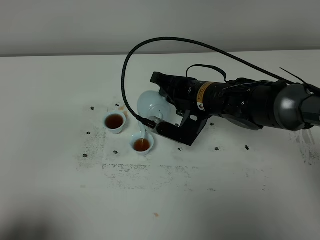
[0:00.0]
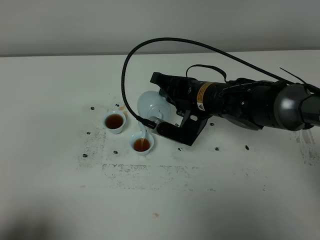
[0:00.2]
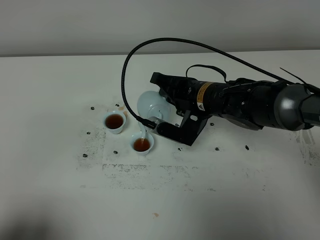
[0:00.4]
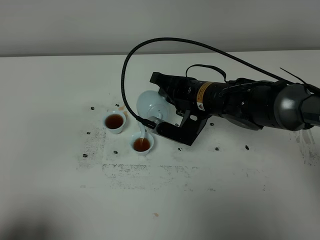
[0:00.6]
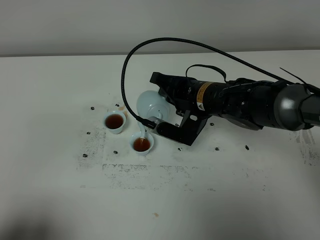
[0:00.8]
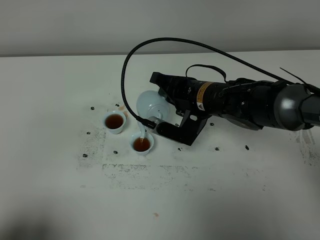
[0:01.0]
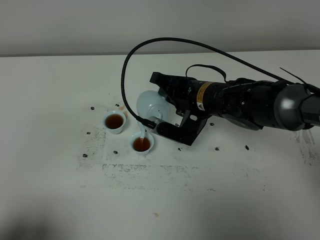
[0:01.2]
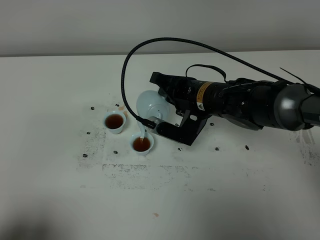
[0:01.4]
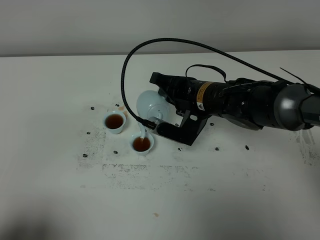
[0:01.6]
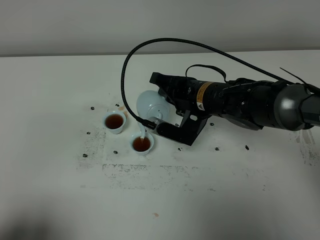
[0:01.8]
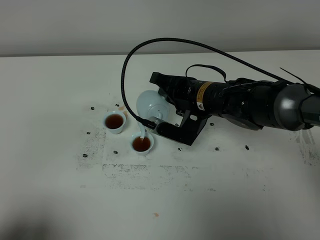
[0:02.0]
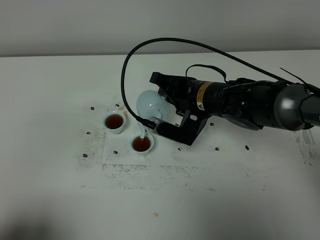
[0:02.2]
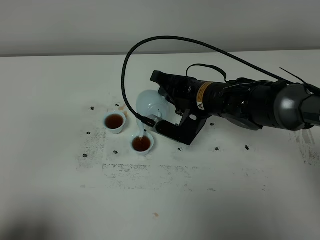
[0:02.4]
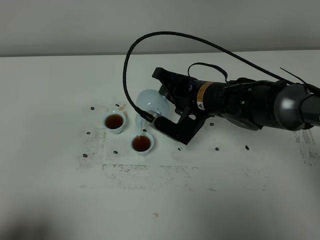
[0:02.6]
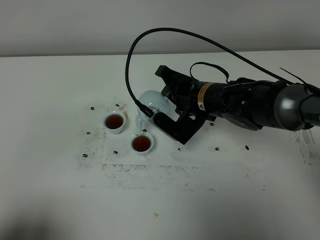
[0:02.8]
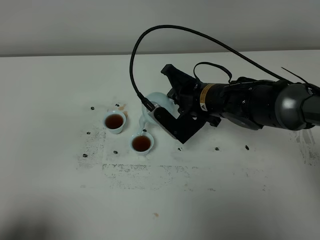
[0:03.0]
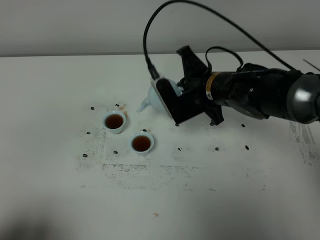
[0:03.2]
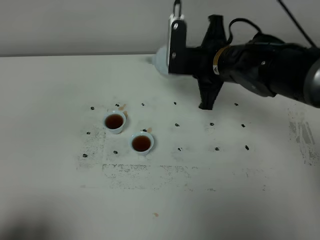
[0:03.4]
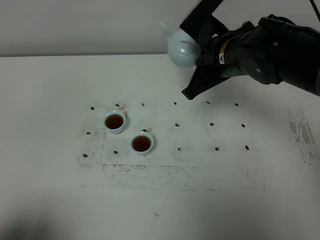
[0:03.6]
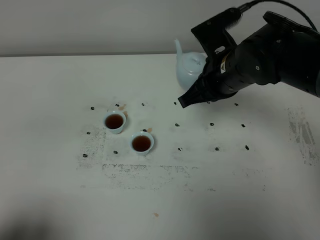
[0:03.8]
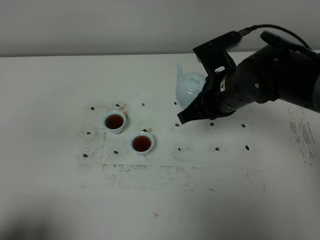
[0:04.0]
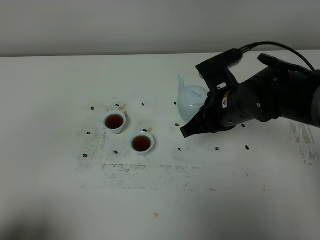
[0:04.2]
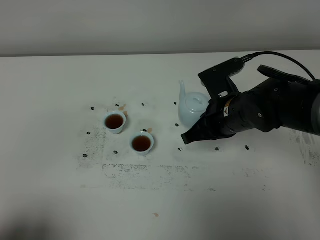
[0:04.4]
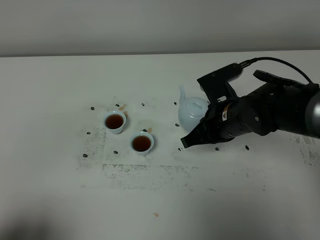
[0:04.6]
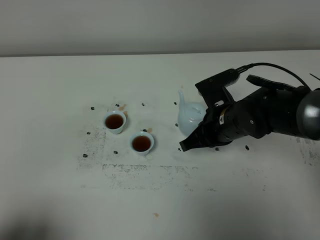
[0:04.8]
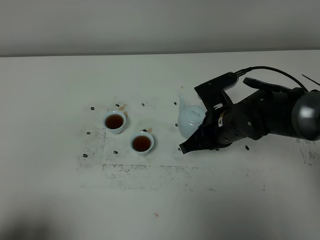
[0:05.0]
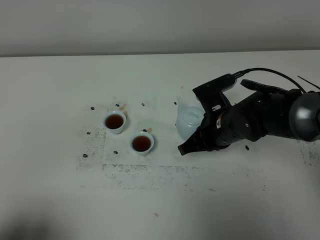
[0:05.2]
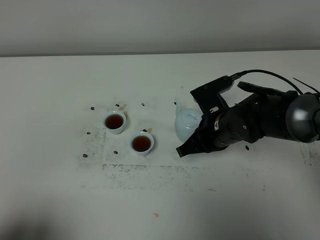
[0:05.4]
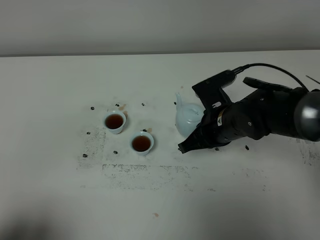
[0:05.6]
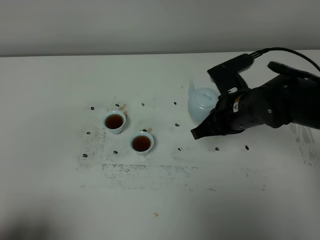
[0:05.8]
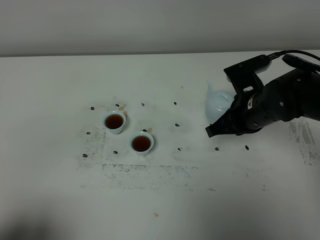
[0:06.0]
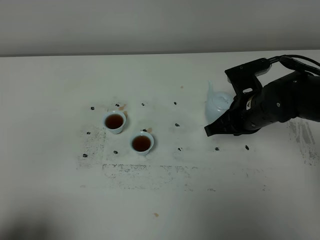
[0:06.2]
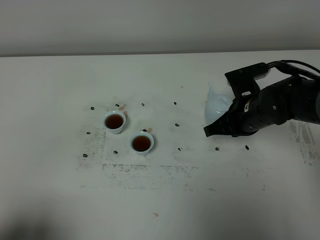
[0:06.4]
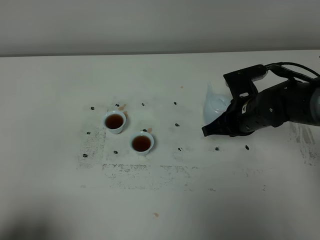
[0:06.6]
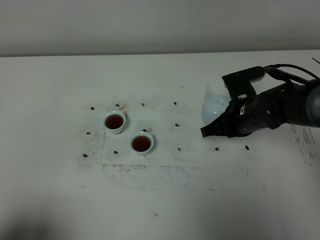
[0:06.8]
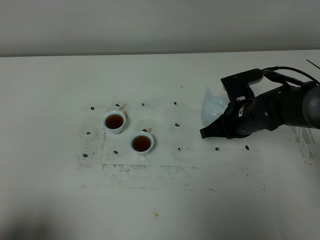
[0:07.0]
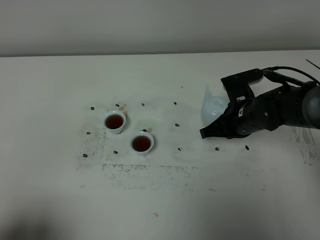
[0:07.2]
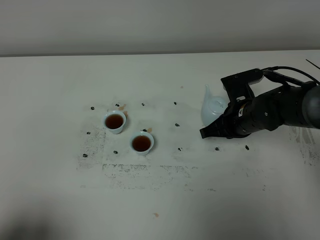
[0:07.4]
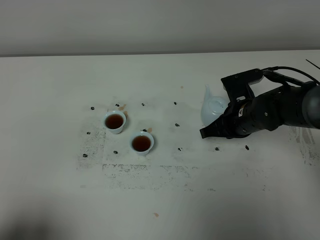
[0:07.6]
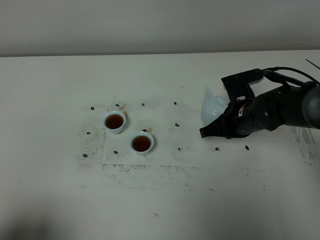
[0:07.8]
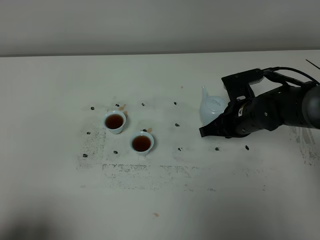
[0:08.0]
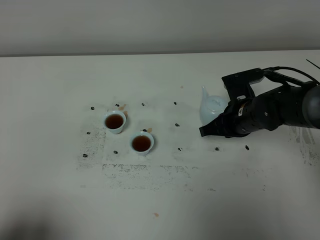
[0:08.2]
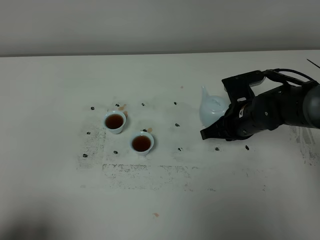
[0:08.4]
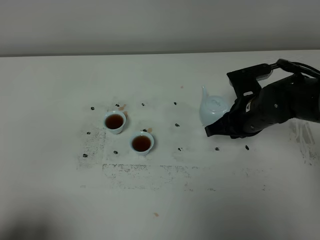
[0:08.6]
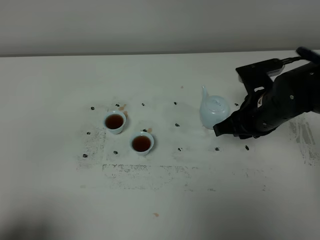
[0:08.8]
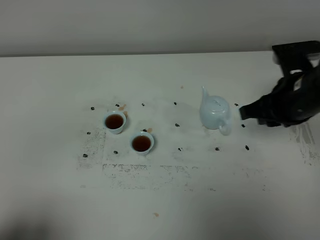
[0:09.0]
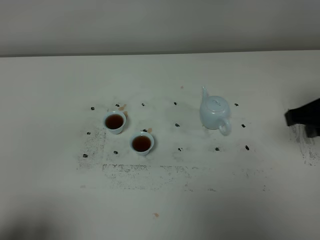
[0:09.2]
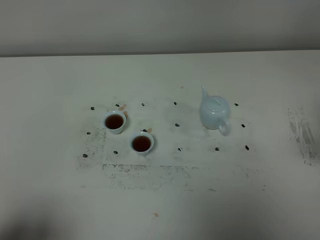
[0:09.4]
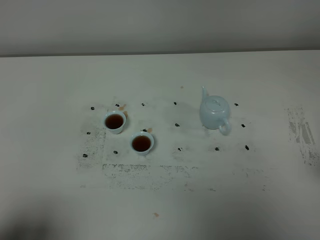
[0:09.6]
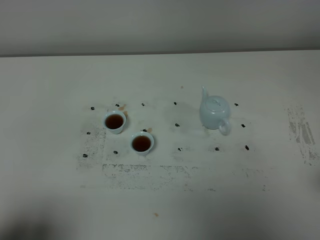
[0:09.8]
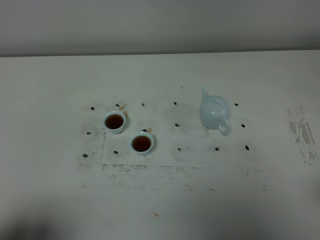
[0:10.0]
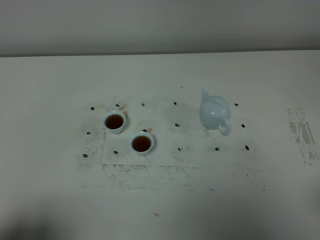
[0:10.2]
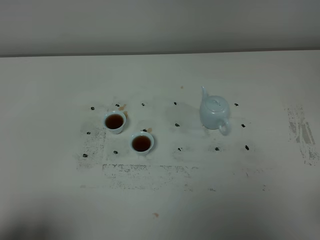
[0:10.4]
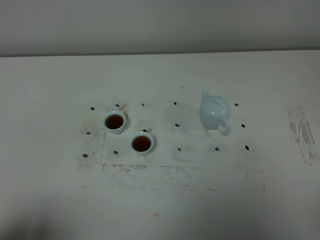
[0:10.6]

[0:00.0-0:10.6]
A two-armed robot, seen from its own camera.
Task of the whole recording: grasp the blue porcelain teapot and pour the tea into the two blue porcelain teacups one by one, put the blue porcelain teapot back in its original place.
Step, 0:00.0 to 0:03.0: Pour tea into the teacup with the right gripper.
0:00.0 to 0:01.6: The two grippers keep their place.
0:03.0 to 0:04.6: The right gripper moves about 10 cm upward and comes back.
0:04.6 to 0:06.0: The grippers make only small movements.
0:06.0 to 0:07.6: The right gripper heads downward, covering some 5 cm.
0:07.6 to 0:09.0: The right gripper goes roughly 15 cm upward, backward and to the right, and opens its fingers.
0:09.0 to 0:10.6: The right gripper moves backward, roughly 25 cm.

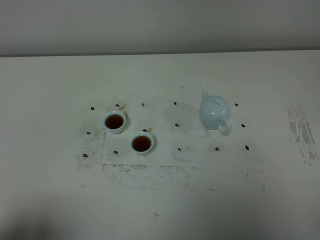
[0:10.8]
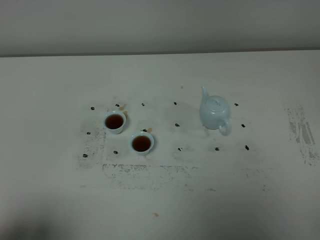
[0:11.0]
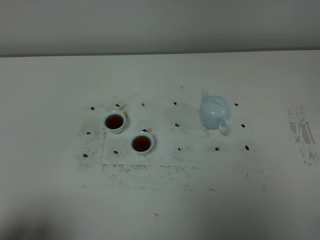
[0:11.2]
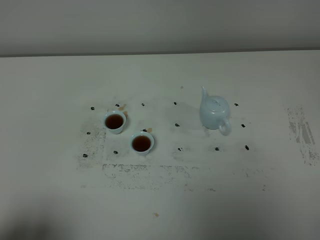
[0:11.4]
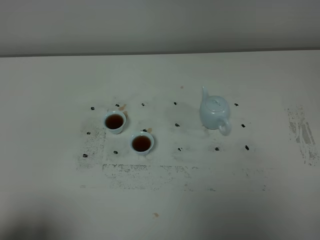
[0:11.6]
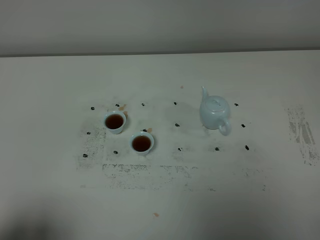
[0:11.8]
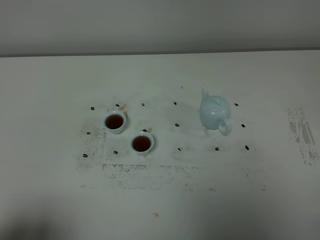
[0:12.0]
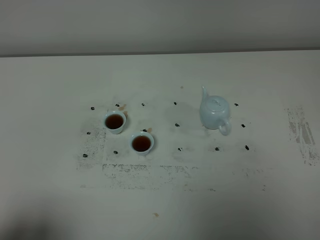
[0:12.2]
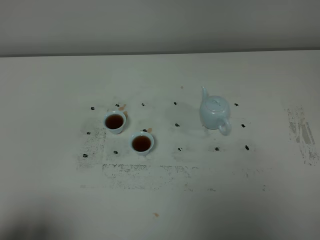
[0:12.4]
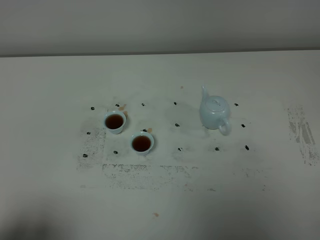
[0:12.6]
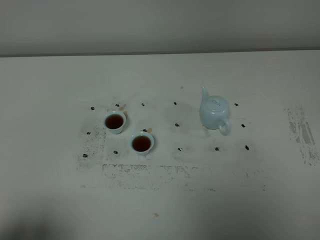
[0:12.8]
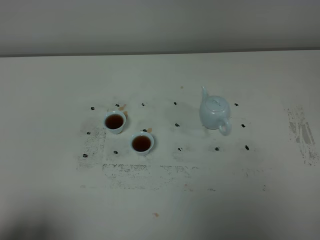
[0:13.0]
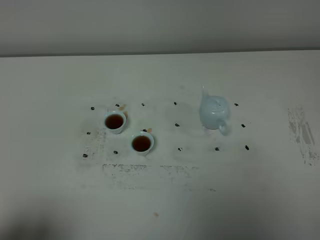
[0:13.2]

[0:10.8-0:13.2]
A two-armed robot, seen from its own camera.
Task of the whole recording: grasp the blue porcelain teapot and pour the tea into the two blue porcelain teacups one by one, put the blue porcelain teapot back in its original place.
0:12.0 to 0:13.2: Both grippers stay put.
